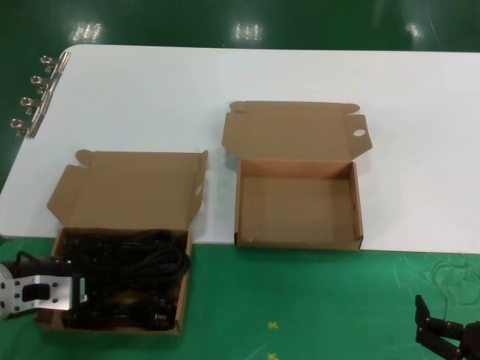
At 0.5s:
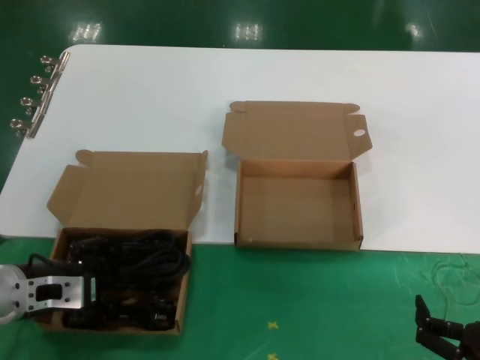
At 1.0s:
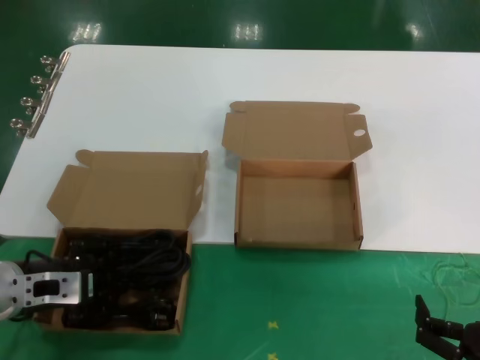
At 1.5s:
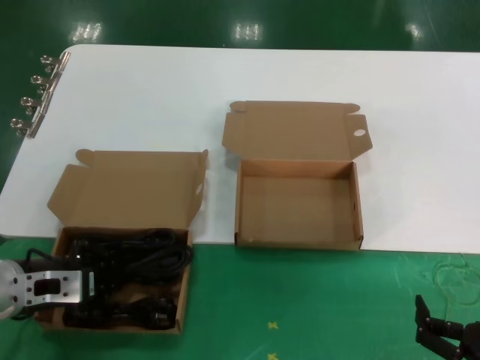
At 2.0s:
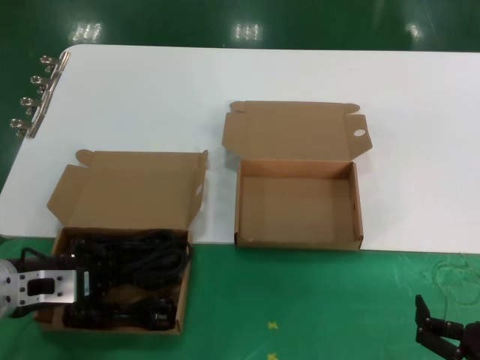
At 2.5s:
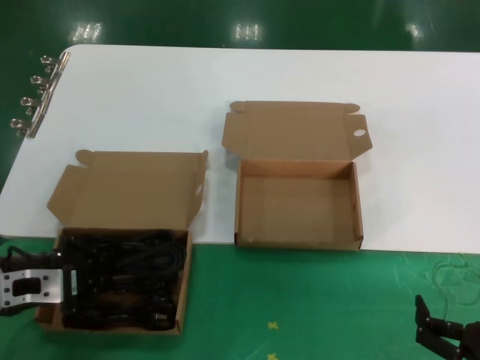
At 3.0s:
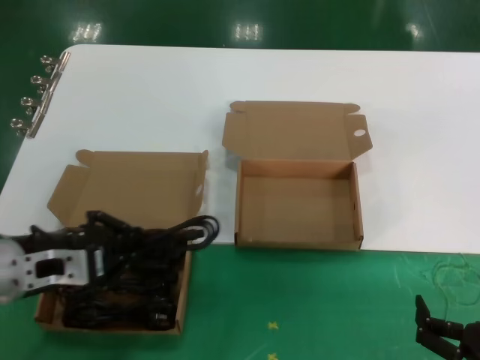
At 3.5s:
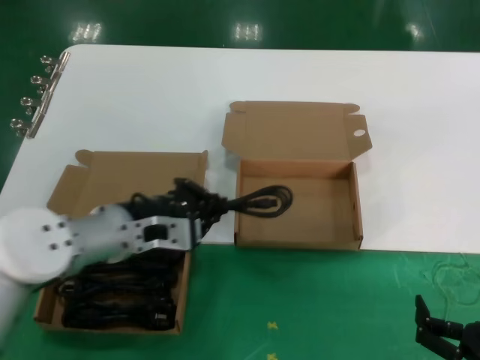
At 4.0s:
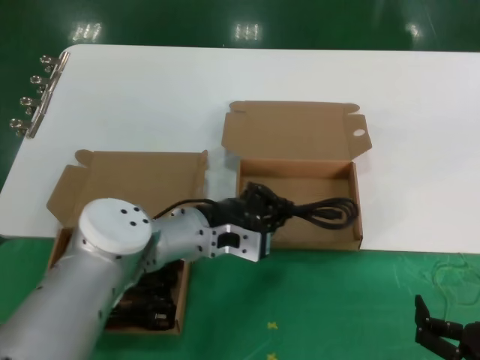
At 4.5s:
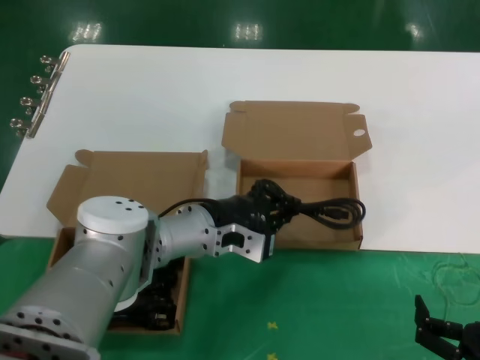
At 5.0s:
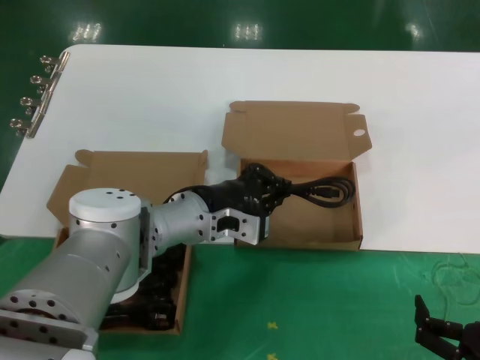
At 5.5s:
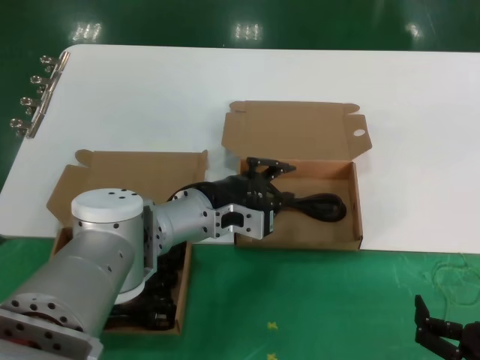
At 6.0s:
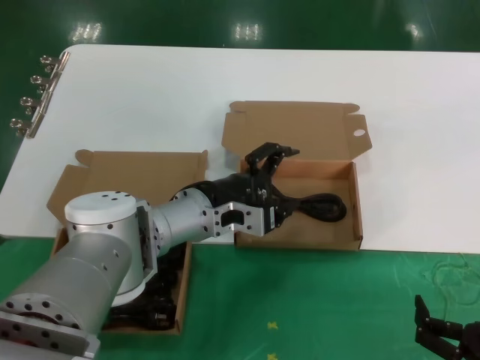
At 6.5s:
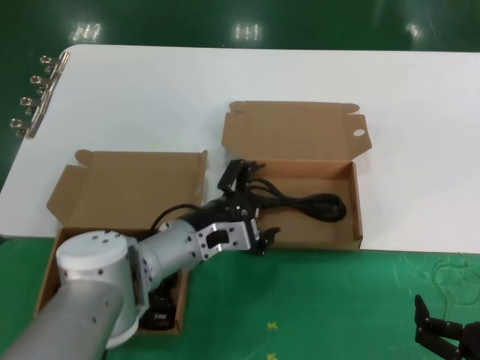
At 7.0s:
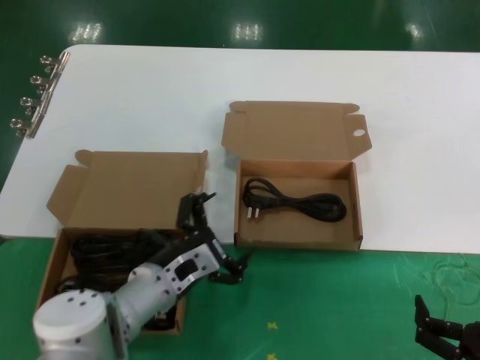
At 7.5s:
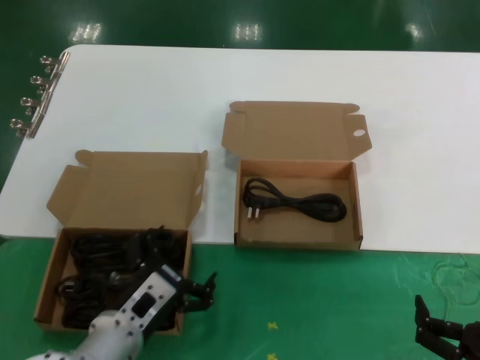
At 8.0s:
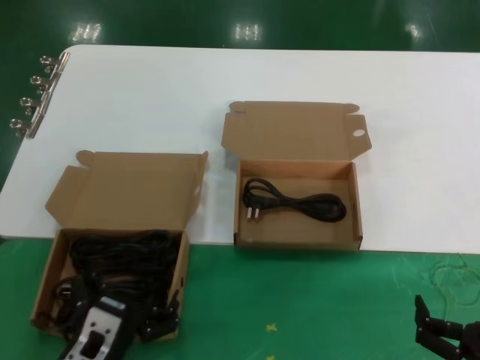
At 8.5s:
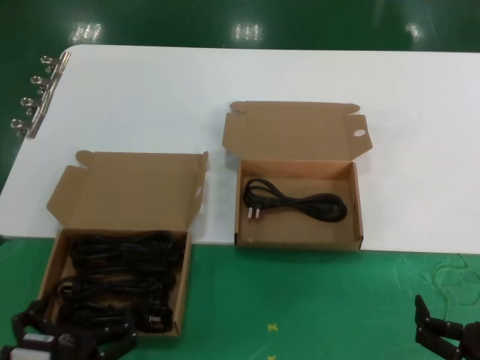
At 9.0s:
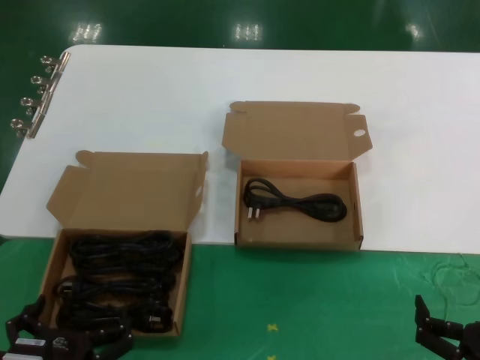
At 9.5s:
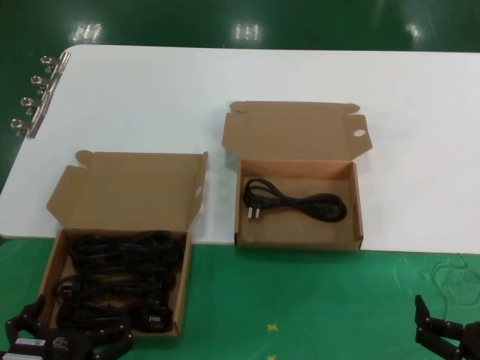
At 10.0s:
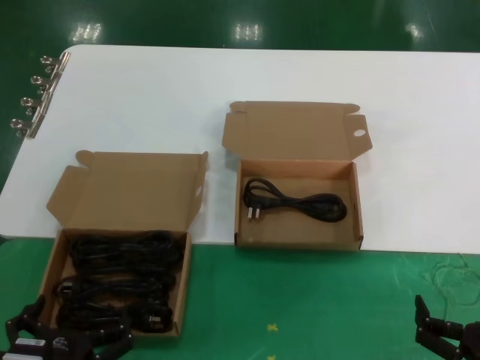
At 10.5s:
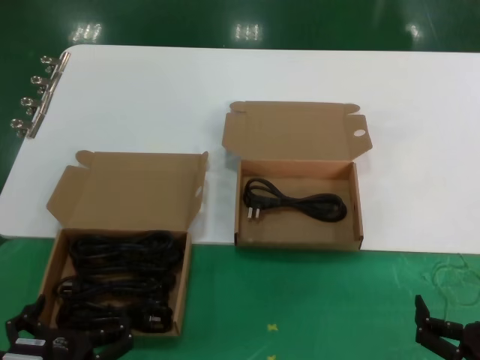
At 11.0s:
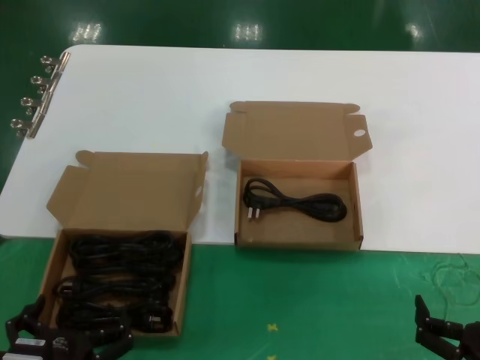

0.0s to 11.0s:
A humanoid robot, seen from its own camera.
Task of the whole recording: take the parts from the box containing them and put them into an empty box.
Step, 0.0s to 5.5s: Place the data cable in the another box.
0.0s to 2.0s: There are only small adjustments of the hands.
2.0s to 3.5s: The left hand goes about 15 cm to the right.
3.5s to 5.5s: The left hand goes approximately 10 cm to the right and forward.
5.5s to 7.5s: The left hand travels downward, backward and to the left by some 20 cm.
7.5s to 9.0s: The left hand heads backward, covering approximately 15 cm.
9.0s to 11.0s: Both hands stay about where they are.
